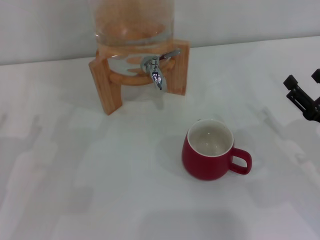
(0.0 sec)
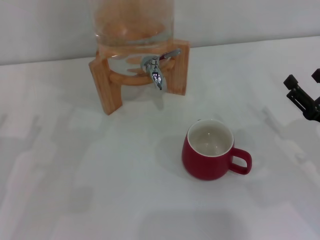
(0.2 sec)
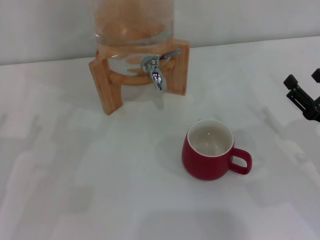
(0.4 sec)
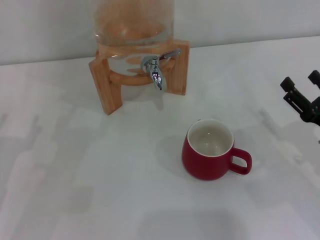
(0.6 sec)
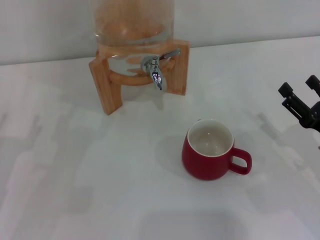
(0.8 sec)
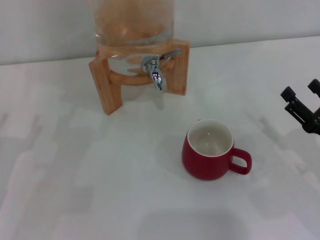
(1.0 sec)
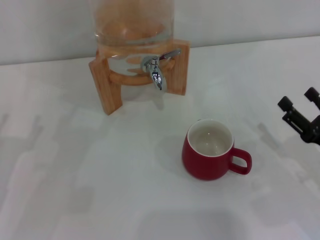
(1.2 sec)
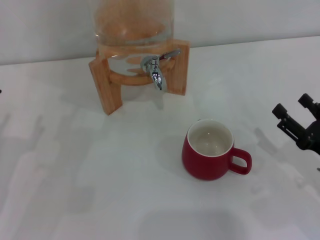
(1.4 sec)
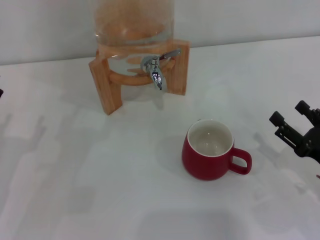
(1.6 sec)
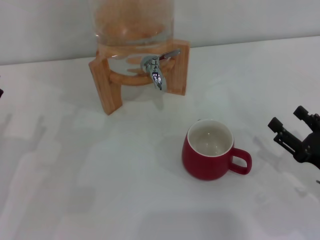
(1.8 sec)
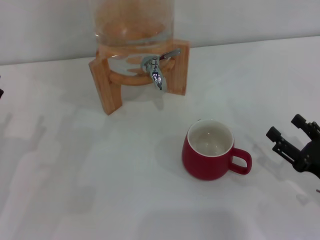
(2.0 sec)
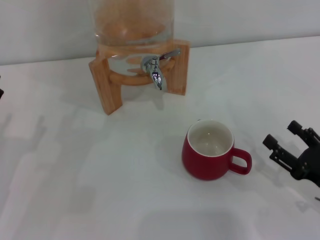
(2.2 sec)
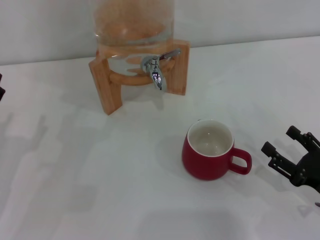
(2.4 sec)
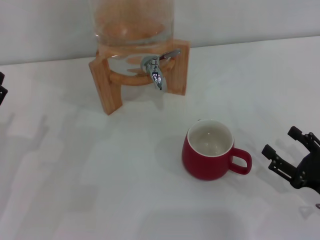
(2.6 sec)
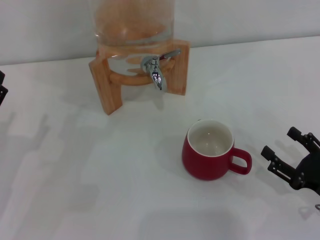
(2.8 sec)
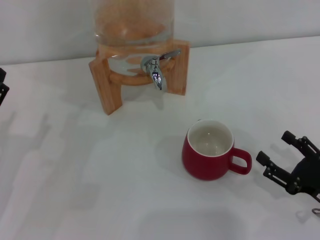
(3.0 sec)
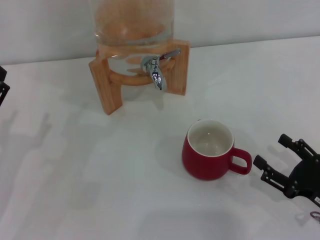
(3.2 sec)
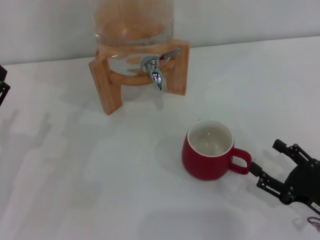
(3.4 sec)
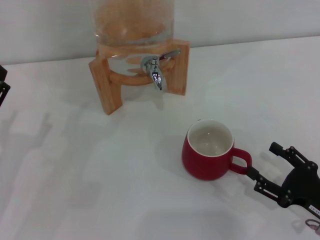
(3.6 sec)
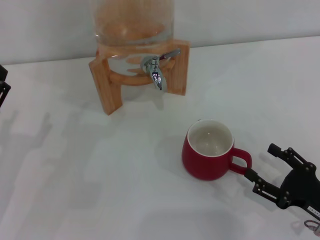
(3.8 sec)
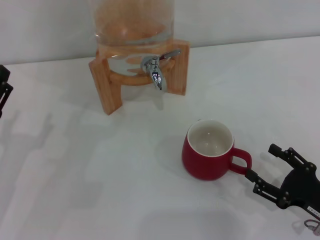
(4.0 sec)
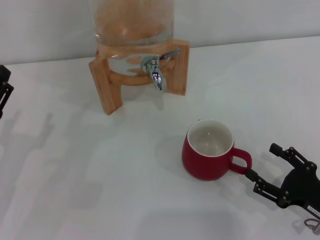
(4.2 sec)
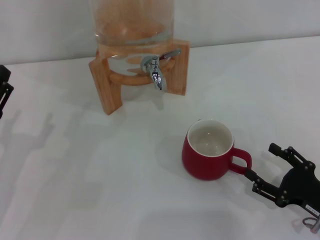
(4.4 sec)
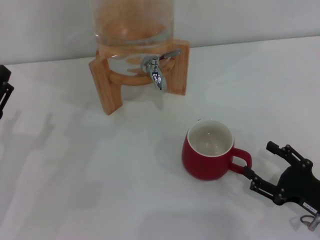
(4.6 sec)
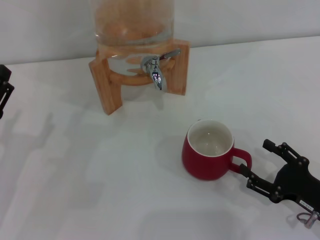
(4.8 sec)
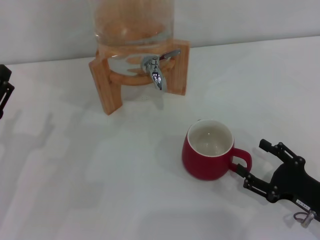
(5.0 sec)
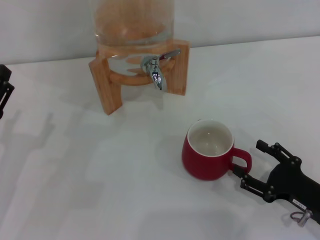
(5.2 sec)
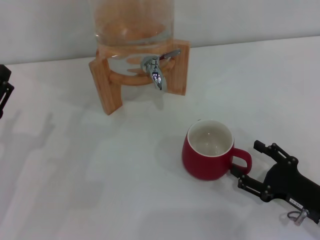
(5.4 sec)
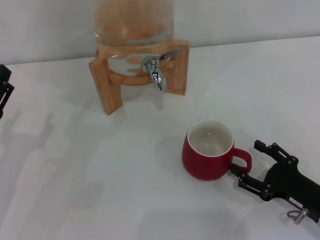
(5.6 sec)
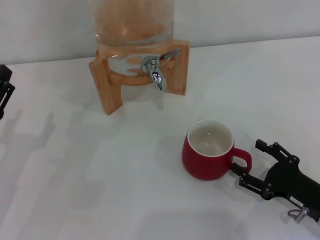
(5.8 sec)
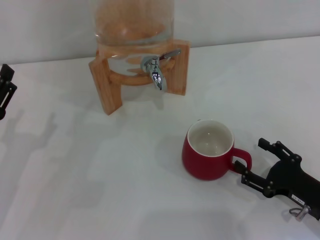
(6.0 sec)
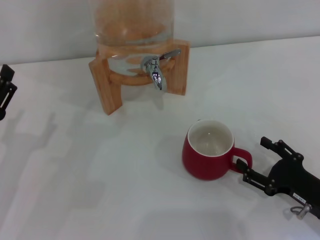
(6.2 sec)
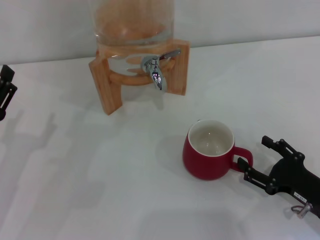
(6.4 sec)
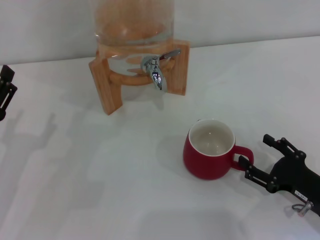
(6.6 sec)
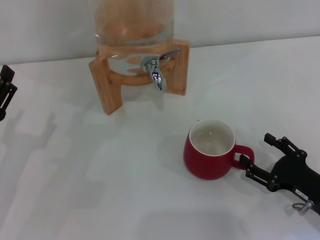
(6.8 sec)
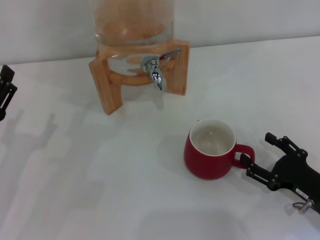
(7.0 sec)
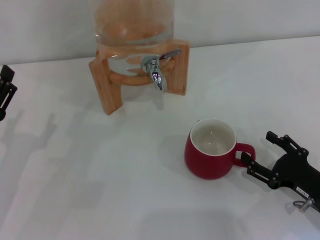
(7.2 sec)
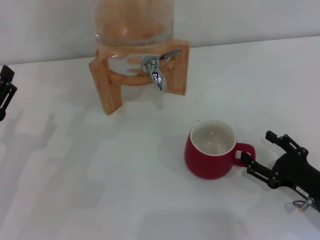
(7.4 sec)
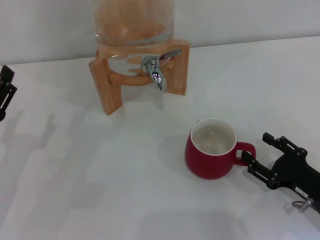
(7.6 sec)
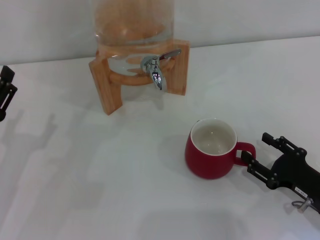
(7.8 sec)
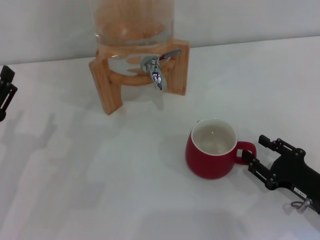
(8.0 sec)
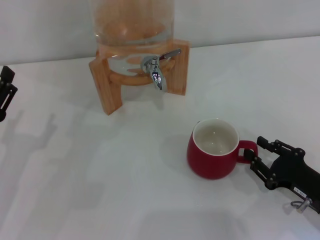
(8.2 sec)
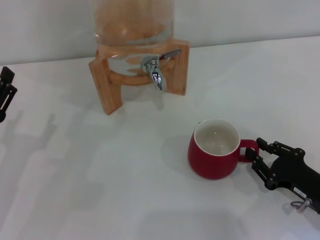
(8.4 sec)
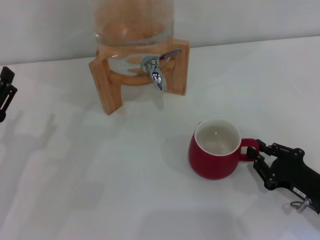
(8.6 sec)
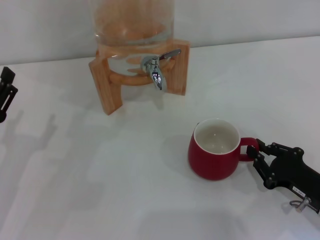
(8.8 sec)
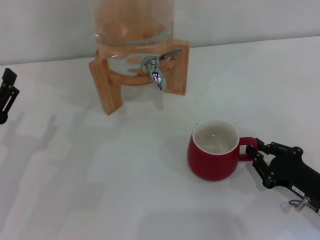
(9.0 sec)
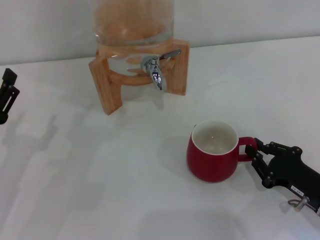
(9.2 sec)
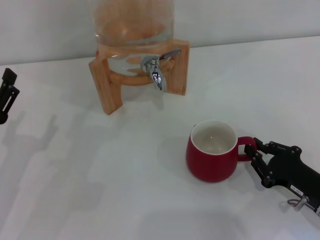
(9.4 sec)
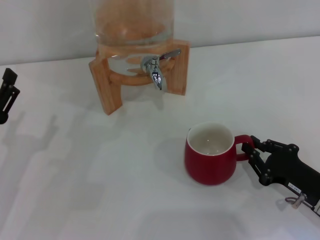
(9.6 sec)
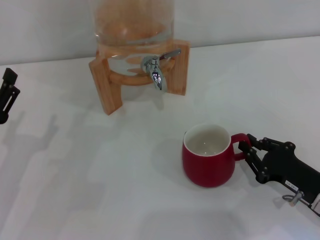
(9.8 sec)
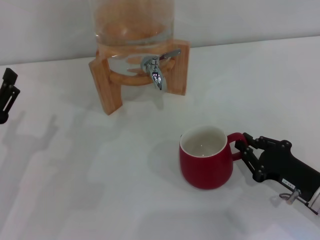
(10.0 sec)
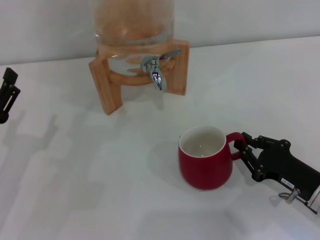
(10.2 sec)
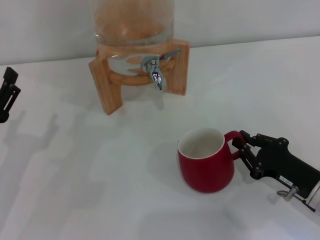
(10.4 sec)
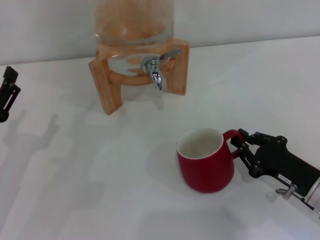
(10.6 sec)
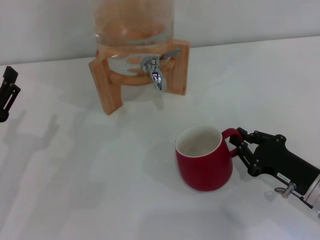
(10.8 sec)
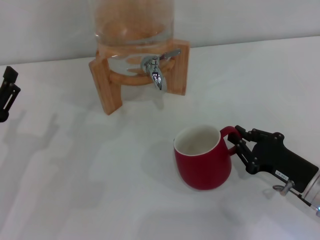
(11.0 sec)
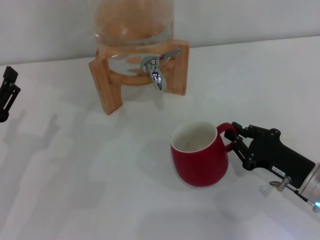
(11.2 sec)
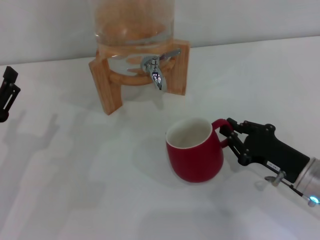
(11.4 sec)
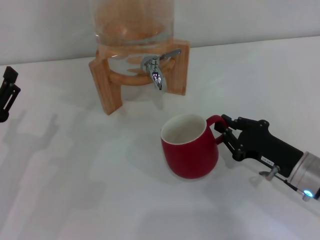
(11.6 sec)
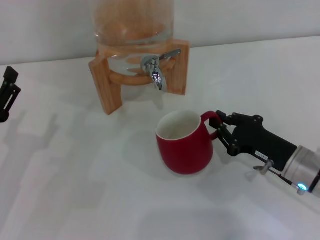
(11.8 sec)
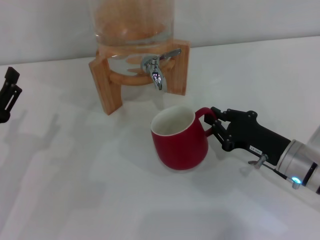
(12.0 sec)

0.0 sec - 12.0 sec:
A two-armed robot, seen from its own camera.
Task of the whole recording: the right gripper pick up the red cup and place it horizontally under the faucet, the left gripper turn on the faucet to fill the cup, and then turn off the faucet.
0.0 sec - 1.6 sec: The grippers move only a little.
1.6 sec - 3.0 sec: The grippers move only a little.
3.0 sec - 6.0 sec: The grippers move only a little.
6.0 sec - 7.6 sec: Neither gripper changes place.
7.6 sec - 9.0 sec: The right gripper closes.
9.0 sec - 10.4 sec: The grippers move only a little.
10.4 sec - 12.0 sec: The right gripper moves forward, some 5 cm.

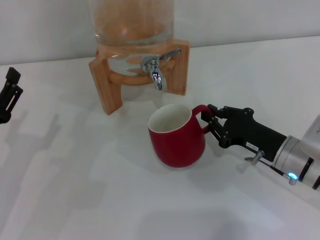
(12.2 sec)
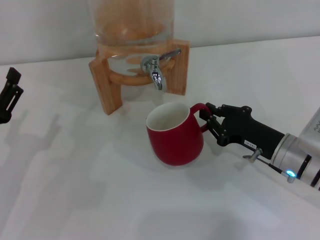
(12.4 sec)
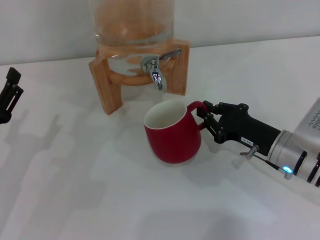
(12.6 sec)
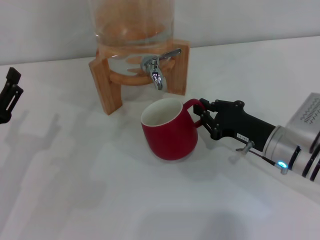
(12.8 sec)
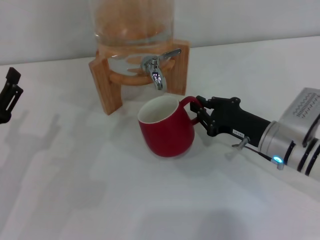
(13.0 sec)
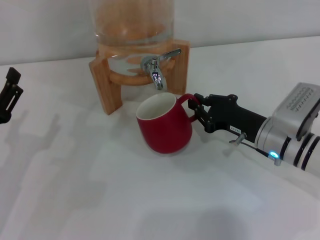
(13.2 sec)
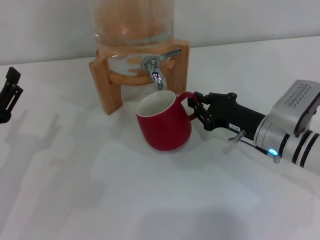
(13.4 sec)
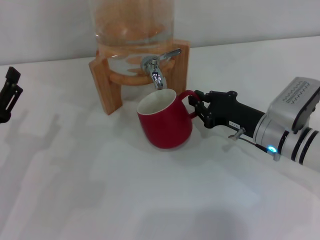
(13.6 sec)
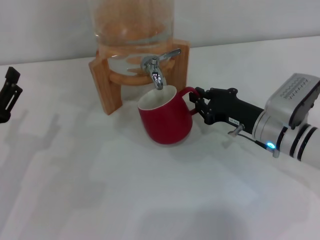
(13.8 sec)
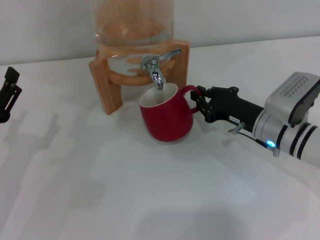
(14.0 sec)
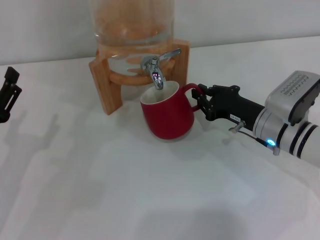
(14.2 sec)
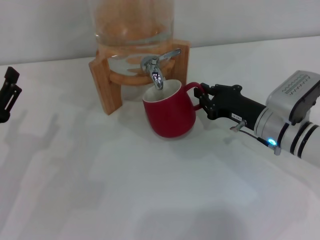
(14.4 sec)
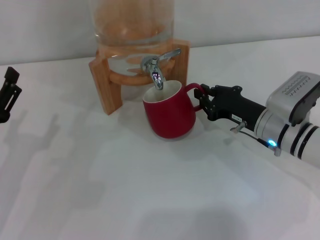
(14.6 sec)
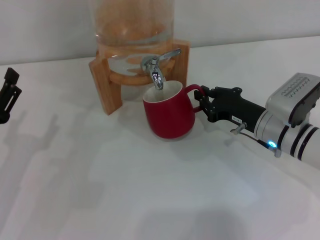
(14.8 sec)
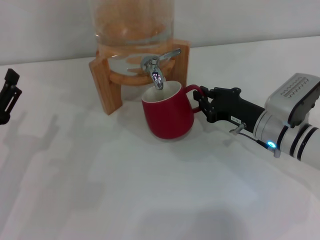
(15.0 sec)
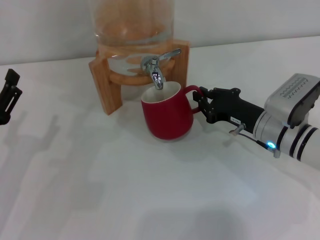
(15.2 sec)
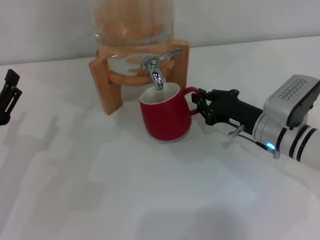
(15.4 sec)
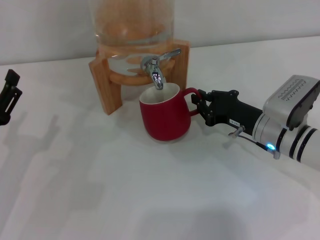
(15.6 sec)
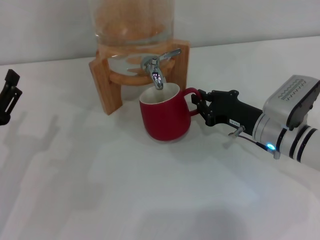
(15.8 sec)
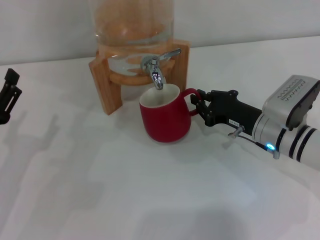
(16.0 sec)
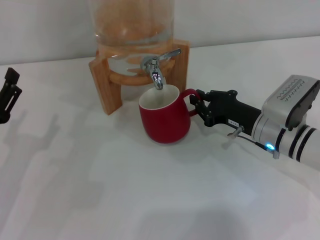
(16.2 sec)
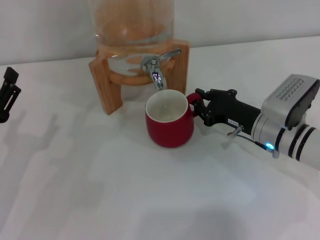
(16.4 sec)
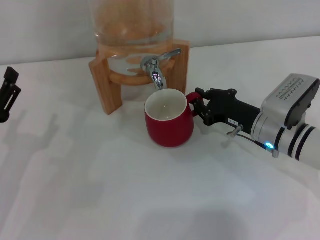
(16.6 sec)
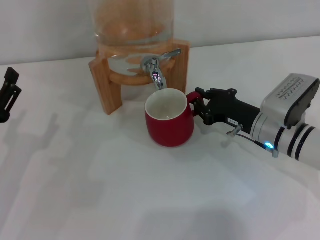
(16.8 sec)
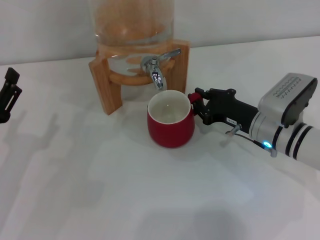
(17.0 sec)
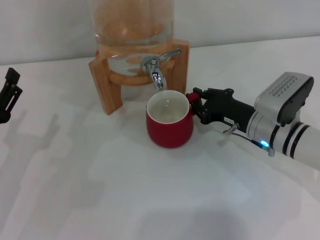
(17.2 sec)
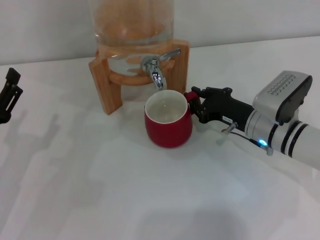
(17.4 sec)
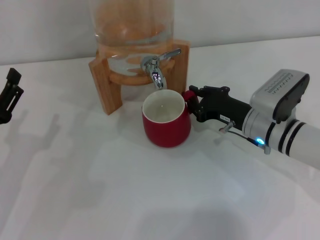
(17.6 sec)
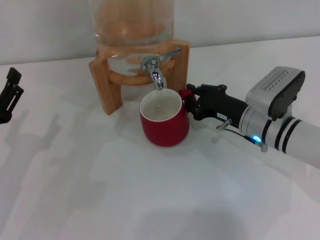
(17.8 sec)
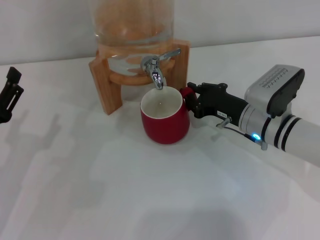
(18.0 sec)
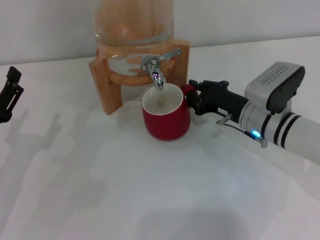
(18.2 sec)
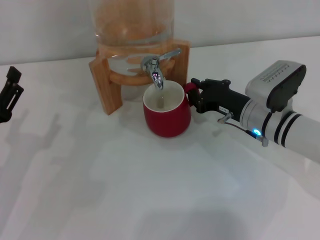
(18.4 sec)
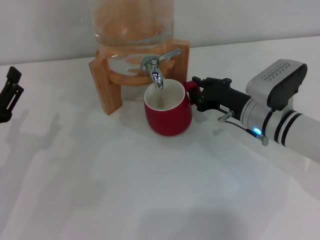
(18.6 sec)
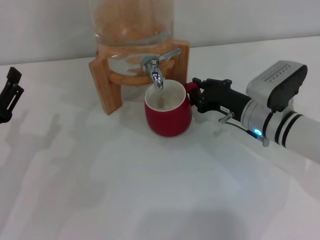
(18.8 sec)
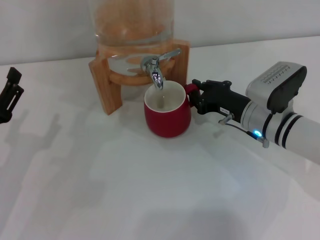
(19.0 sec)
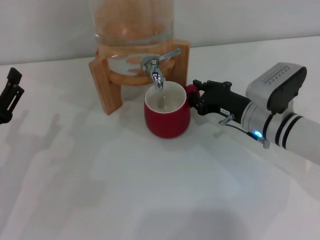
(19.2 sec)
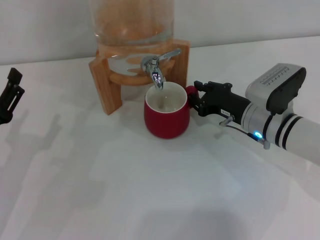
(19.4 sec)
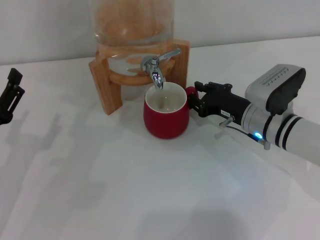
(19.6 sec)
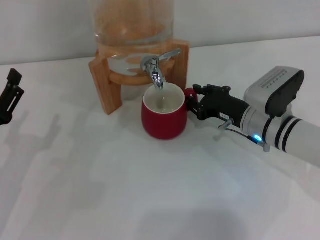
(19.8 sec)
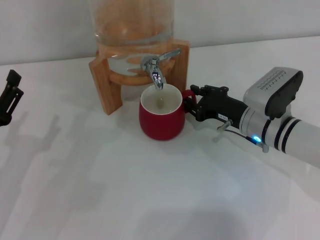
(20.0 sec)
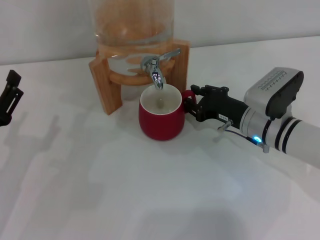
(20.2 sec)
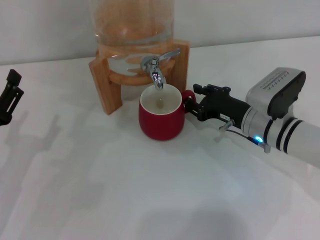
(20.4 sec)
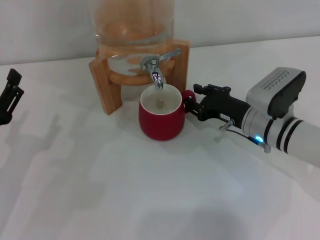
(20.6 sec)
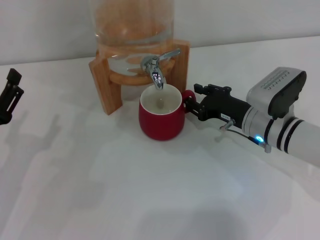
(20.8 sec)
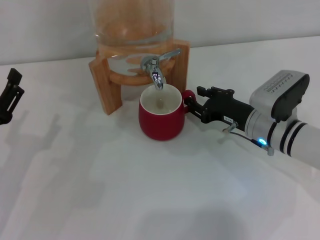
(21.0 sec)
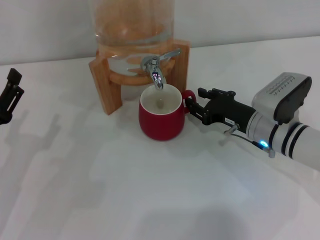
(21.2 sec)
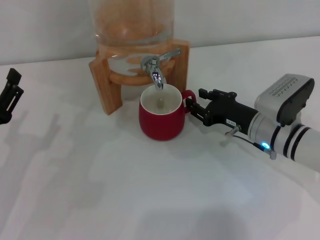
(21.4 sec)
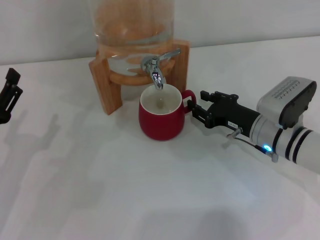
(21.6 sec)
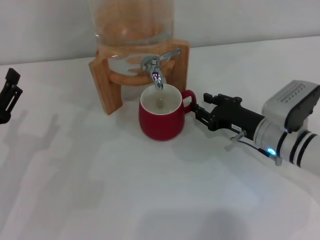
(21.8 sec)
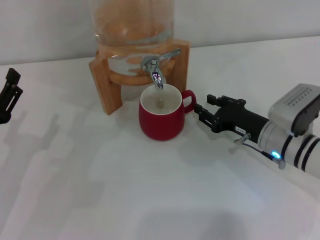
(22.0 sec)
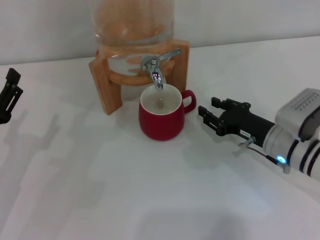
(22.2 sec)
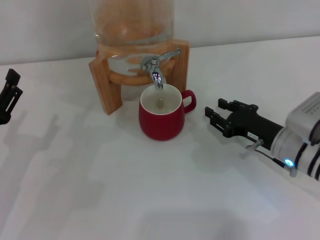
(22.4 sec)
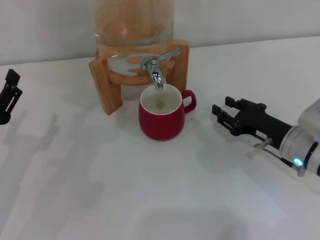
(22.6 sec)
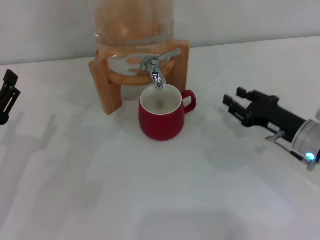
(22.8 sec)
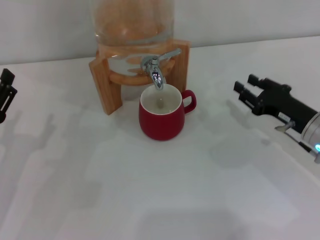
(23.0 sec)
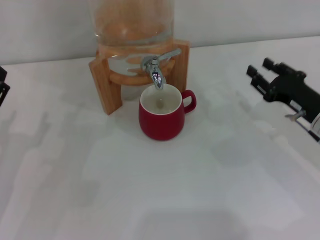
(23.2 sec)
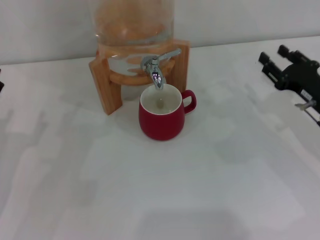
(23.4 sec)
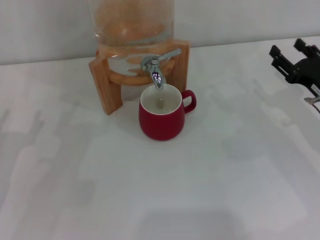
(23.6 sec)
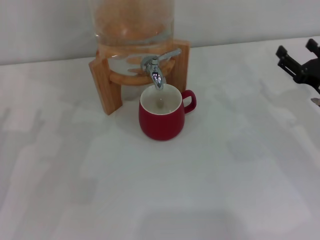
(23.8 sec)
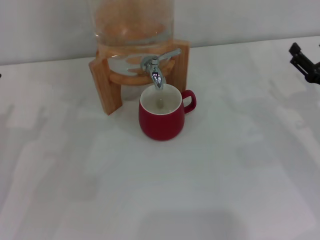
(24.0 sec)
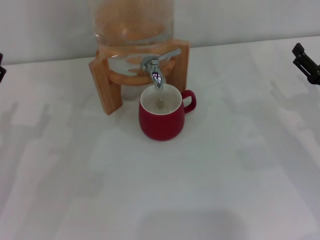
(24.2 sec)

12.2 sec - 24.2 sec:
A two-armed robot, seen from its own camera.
Task of the whole recording: the right gripper pick up the red cup and place it horizontally under the faucet, the left gripper turn on the faucet to fill the cup, and then turn off the faucet.
Step, 12.2 sec - 22.2 sec: Move the cup beneath the water dispenser nozzle with the right gripper.
12.2 sec - 13.8 sec: The right gripper is displaced forward by some 5 cm.
13.8 sec - 16.6 sec: Neither gripper changes place.
16.6 sec - 18.2 sec: The grippers make only small movements.
18.2 sec - 19.8 sec: Both grippers stay put.
19.8 sec - 21.2 sec: Both grippers stay about where they are.
21.2 sec - 22.6 sec: The right gripper changes place by approximately 5 cm.
22.6 sec - 24.2 sec: The right gripper shifts some 10 cm to the right, and opens up.
